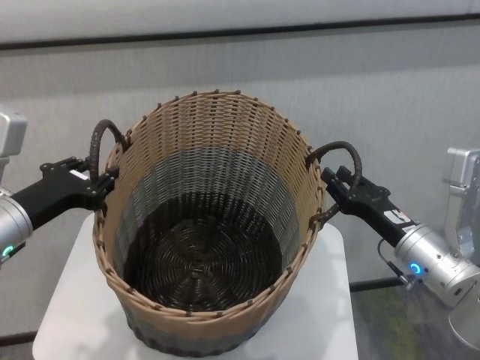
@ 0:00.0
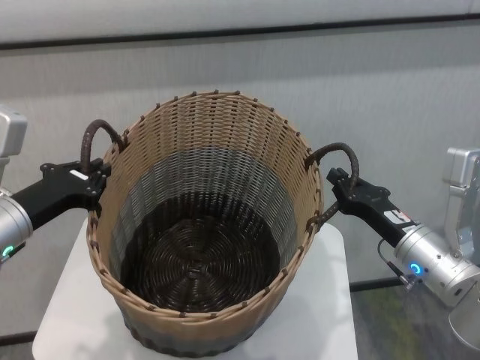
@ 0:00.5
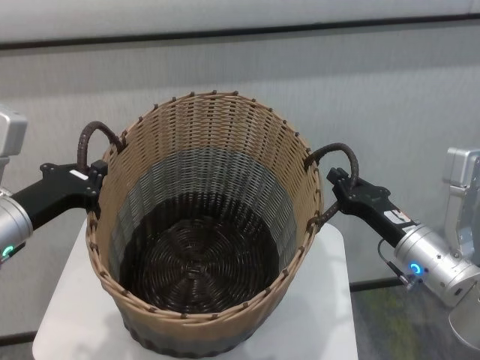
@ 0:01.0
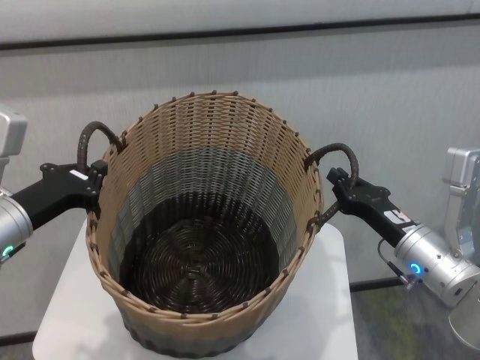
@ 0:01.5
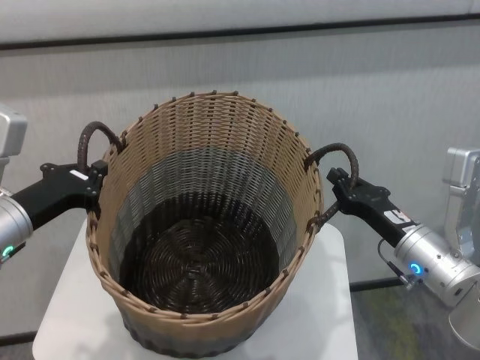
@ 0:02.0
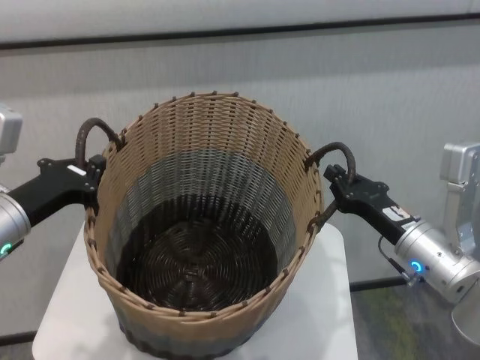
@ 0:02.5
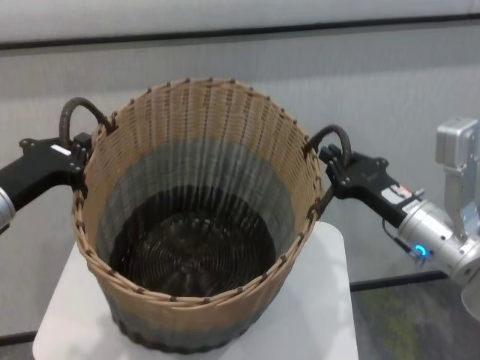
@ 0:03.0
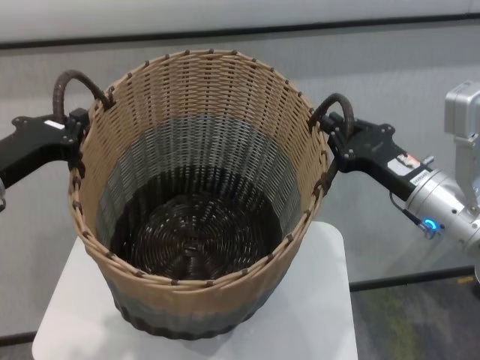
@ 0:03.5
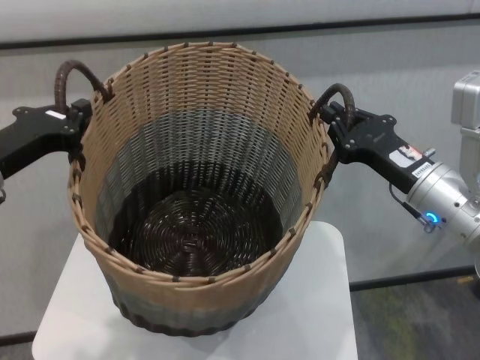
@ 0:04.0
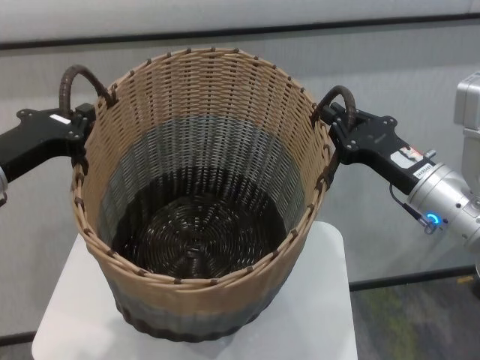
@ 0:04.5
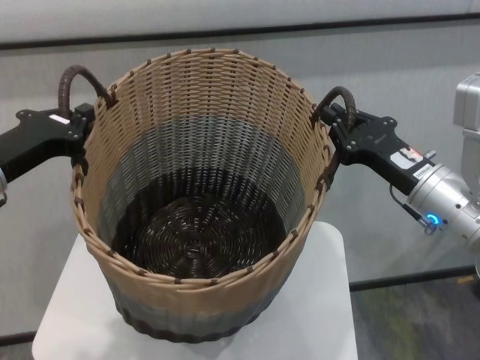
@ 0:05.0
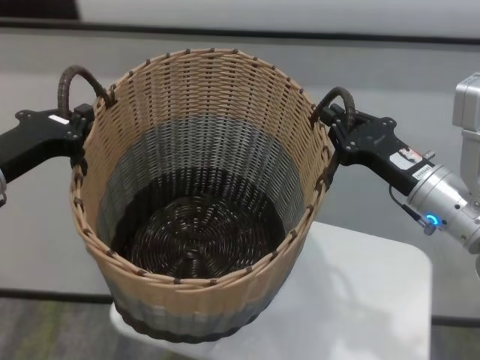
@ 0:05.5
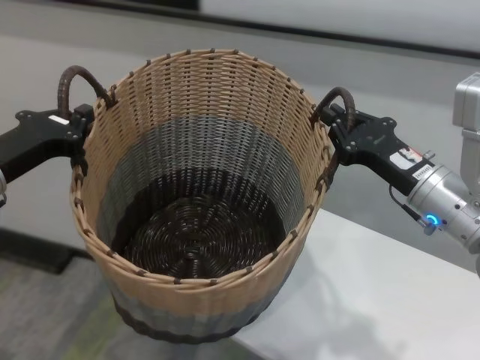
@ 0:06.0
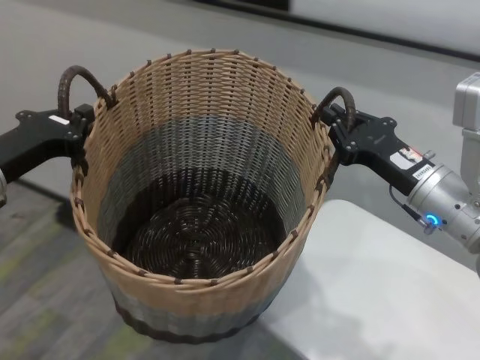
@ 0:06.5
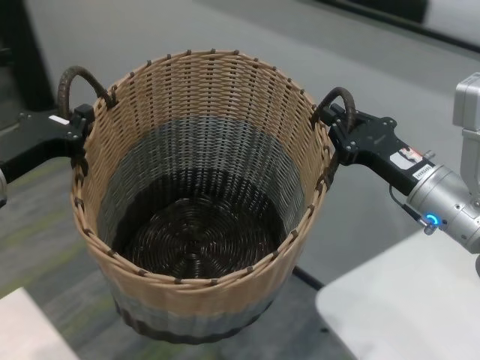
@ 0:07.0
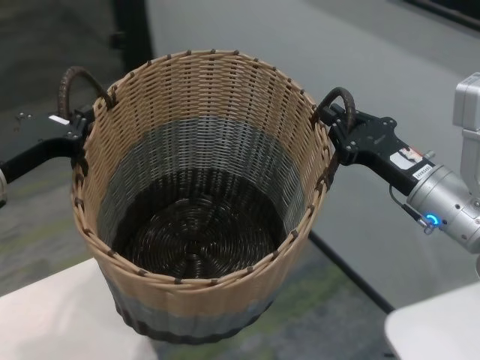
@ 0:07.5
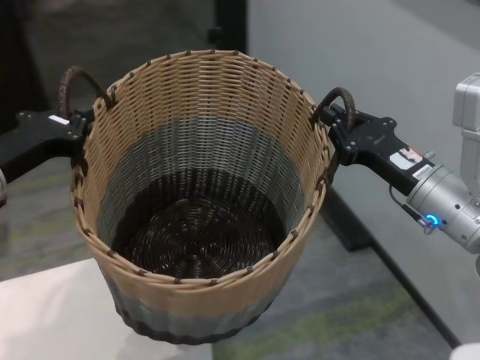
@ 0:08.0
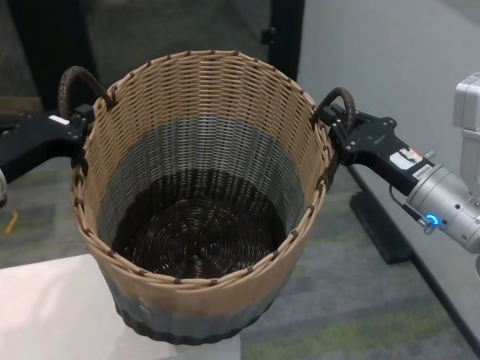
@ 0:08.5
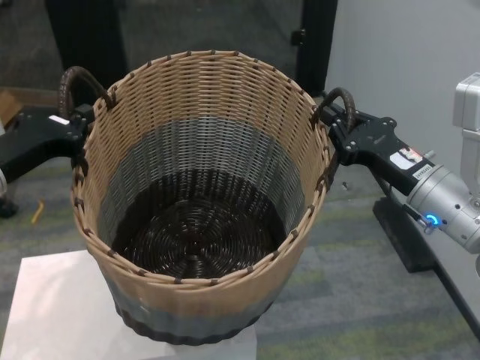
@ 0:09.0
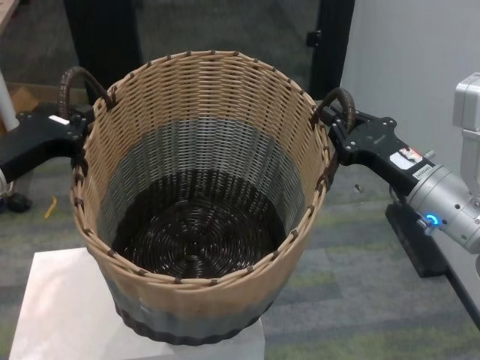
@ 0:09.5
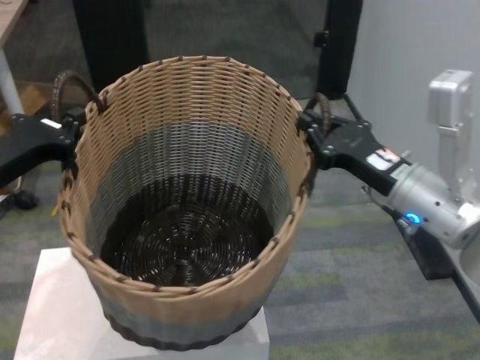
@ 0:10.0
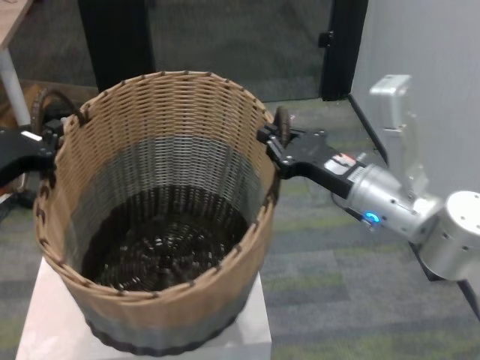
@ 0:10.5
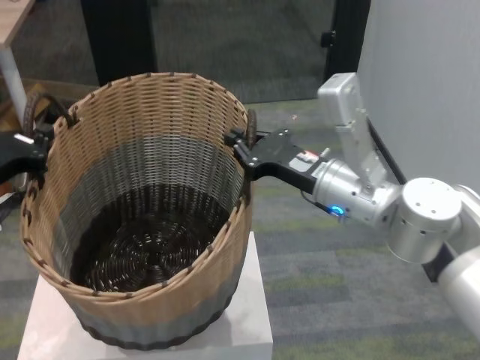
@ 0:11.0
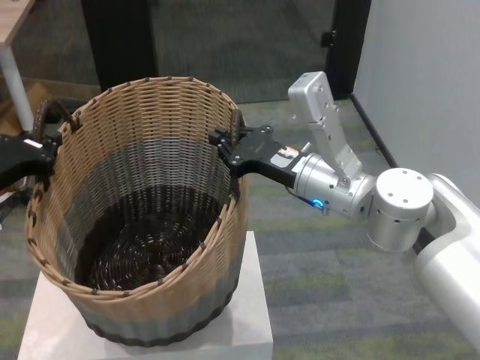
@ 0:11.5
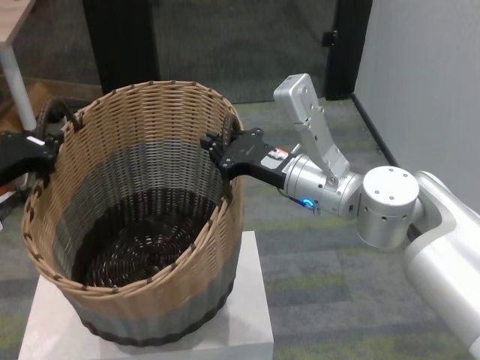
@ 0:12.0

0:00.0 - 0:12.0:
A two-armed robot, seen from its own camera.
Task of the whole recording: carry the clothes basket in coordination with both hands.
Step, 0:02.0 - 0:09.5: Move the basket above the other table.

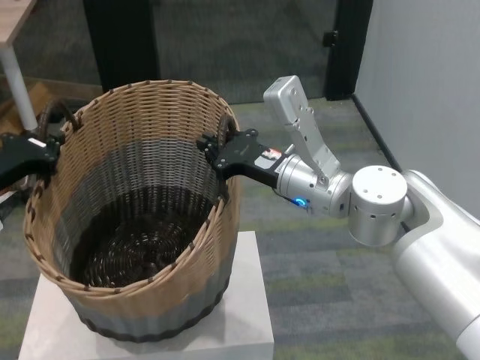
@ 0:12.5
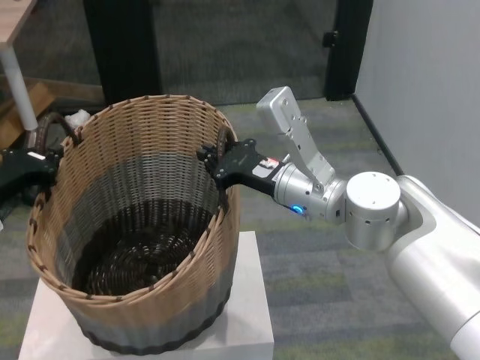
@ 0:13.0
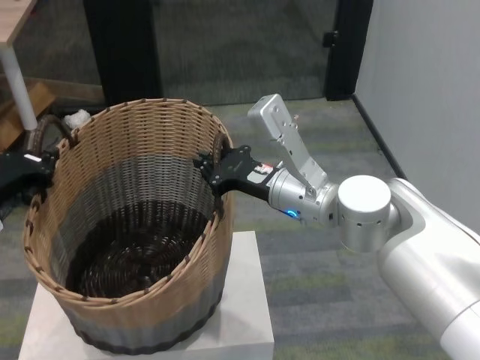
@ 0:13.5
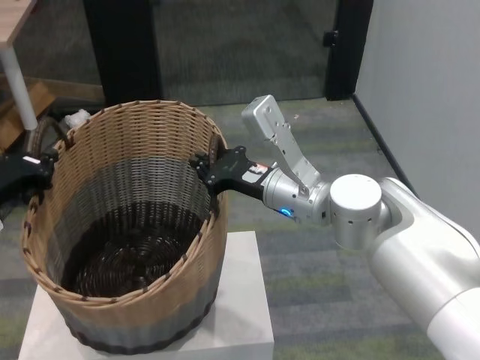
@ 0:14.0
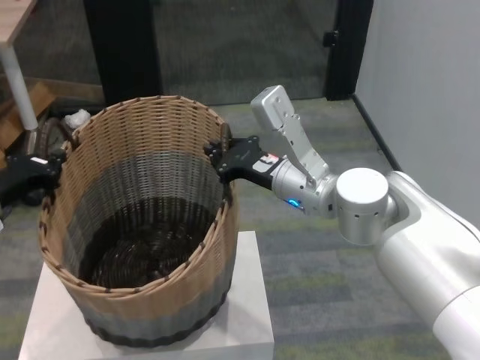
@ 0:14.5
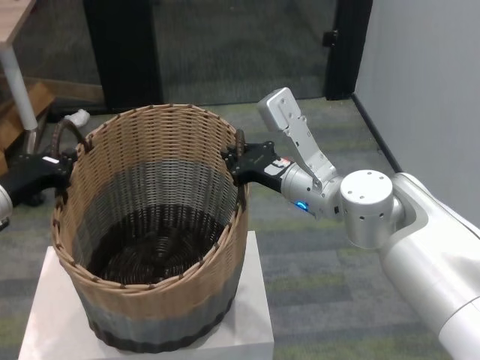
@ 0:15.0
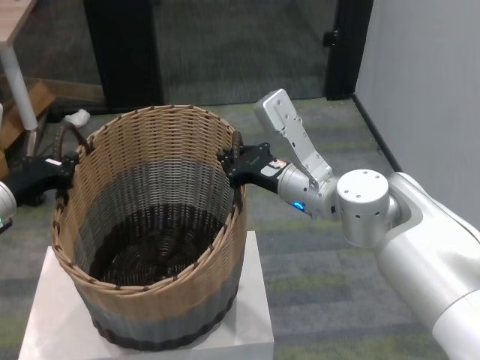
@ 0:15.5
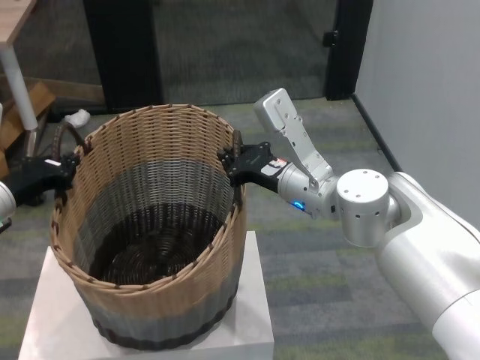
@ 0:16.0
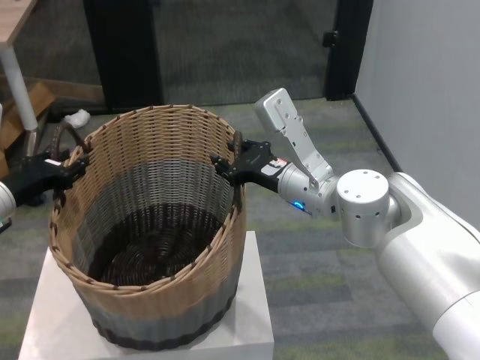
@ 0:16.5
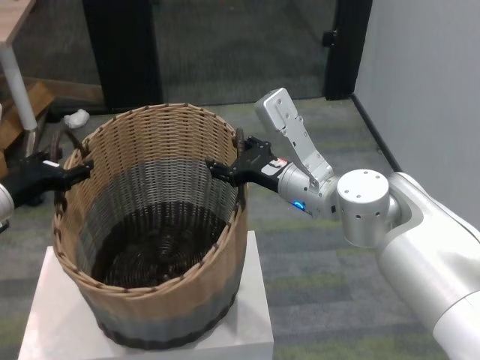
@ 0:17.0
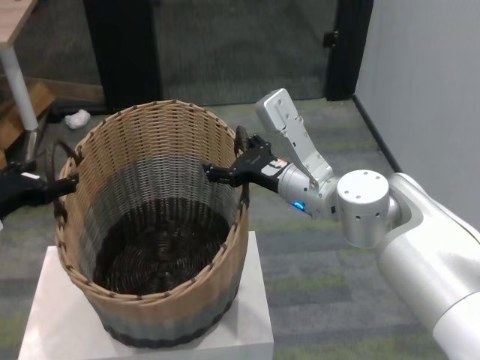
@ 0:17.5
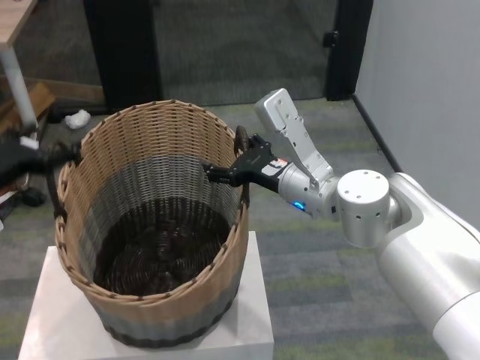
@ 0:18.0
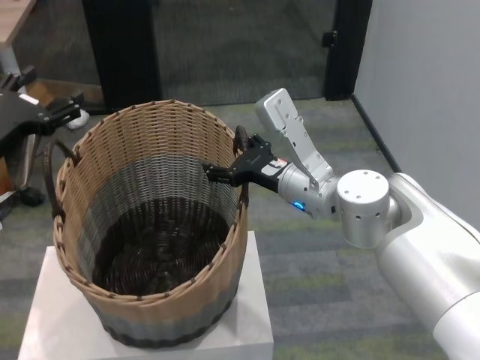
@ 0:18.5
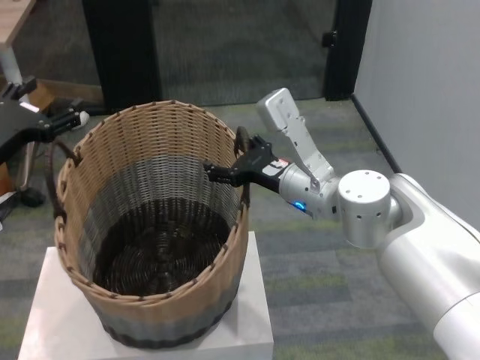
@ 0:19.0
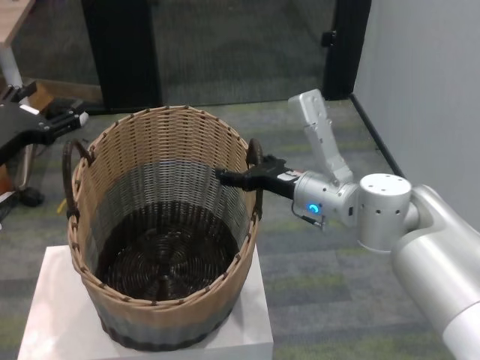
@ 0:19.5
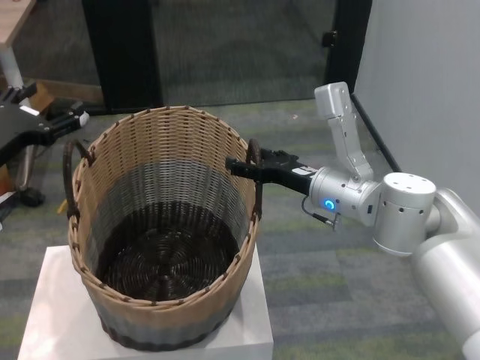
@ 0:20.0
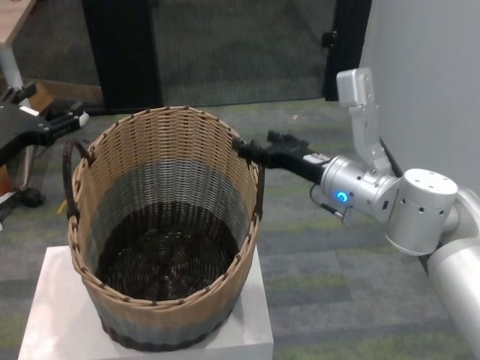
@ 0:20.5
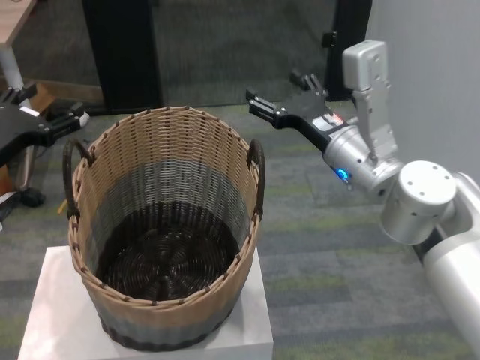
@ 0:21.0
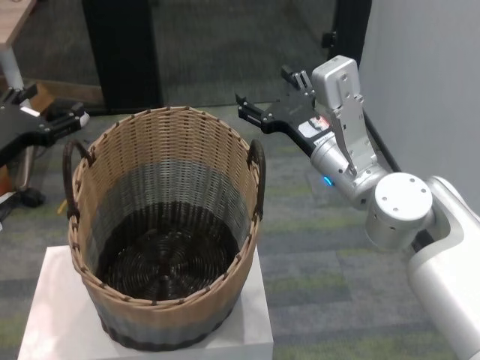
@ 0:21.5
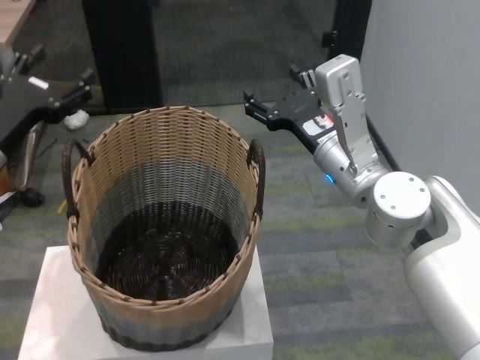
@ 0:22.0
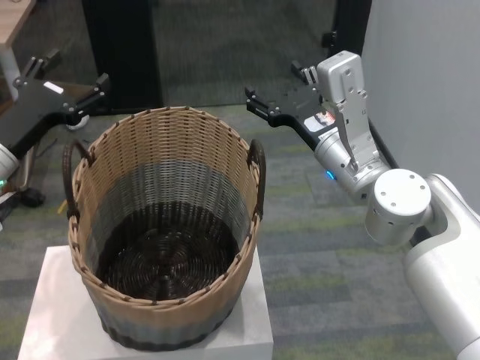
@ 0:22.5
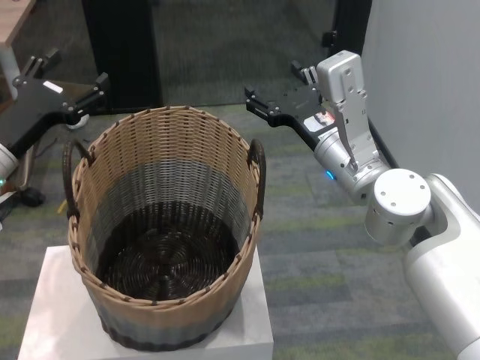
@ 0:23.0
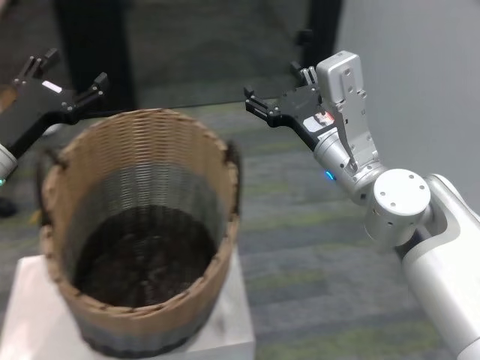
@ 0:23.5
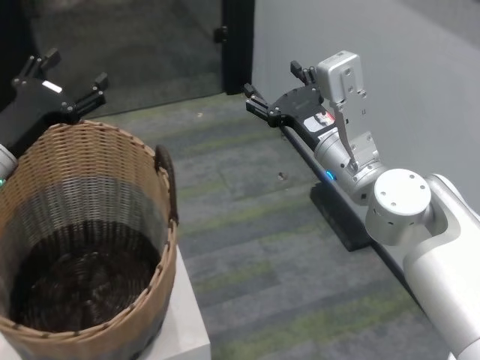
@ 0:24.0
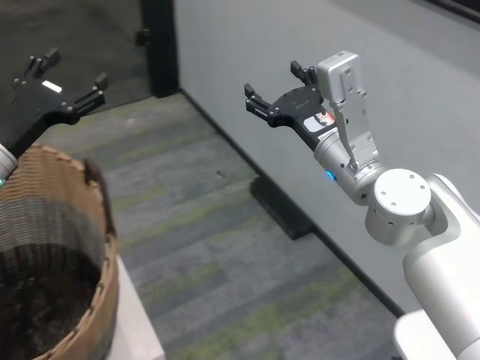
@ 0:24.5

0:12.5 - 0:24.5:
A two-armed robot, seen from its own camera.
Task of the whole recording: carry the clothes basket in coordination with both hands.
Step, 0:12.5 - 0:20.0: Place the basket on the table with both grippers.
